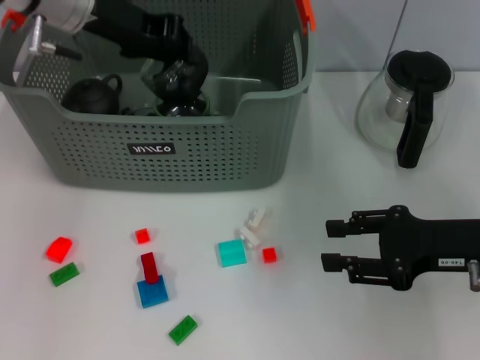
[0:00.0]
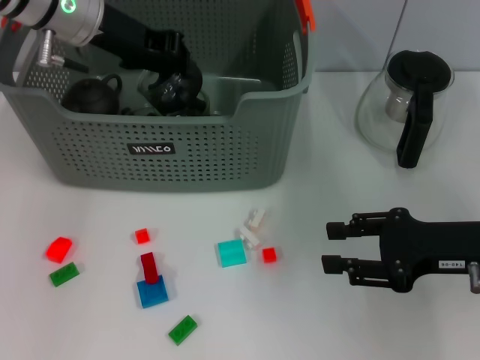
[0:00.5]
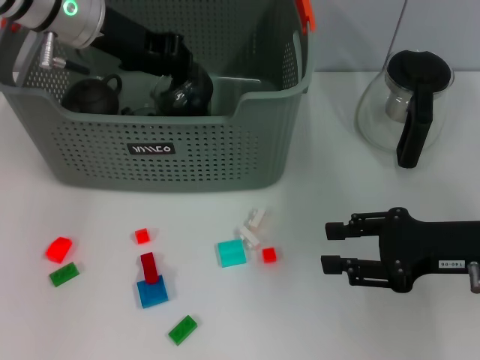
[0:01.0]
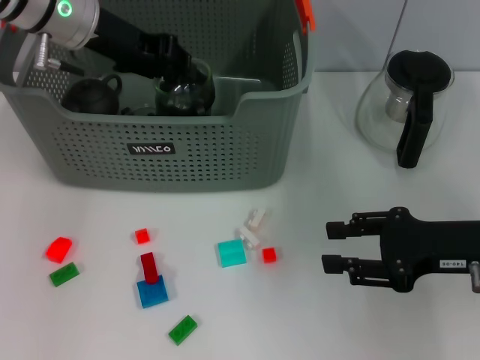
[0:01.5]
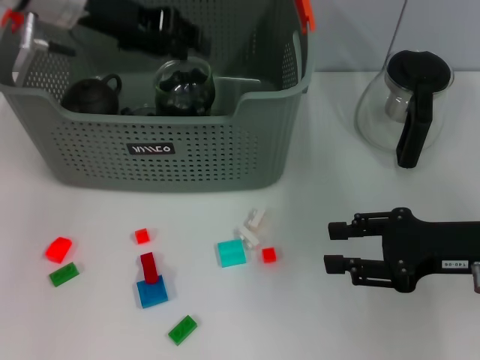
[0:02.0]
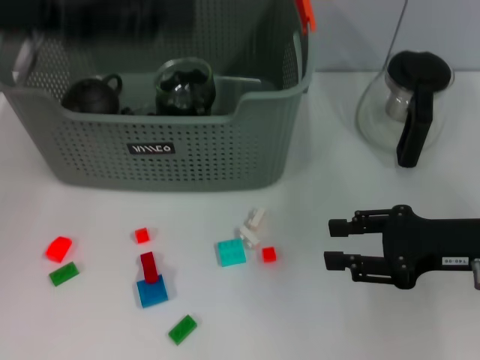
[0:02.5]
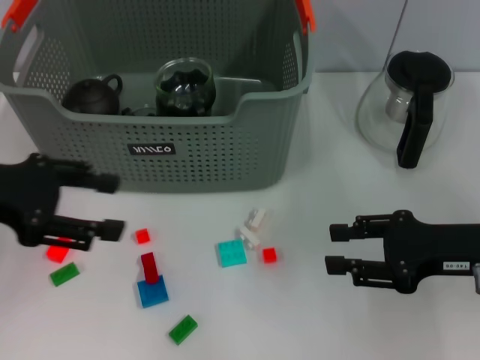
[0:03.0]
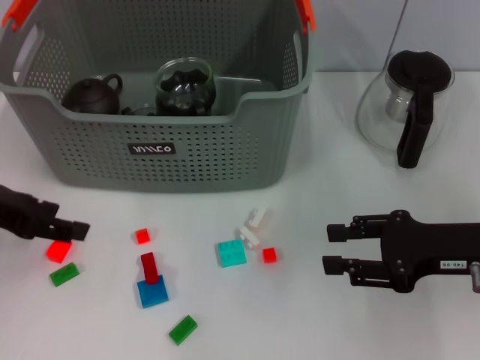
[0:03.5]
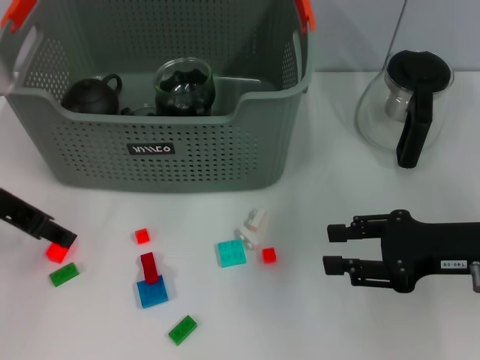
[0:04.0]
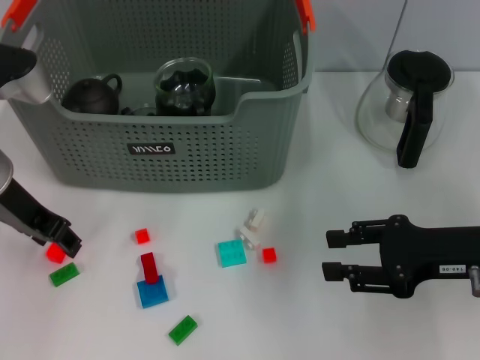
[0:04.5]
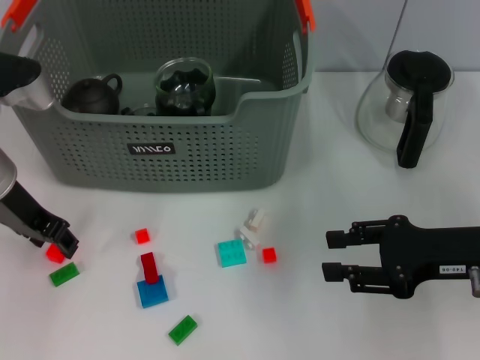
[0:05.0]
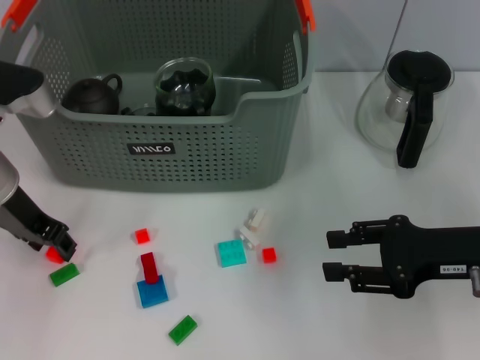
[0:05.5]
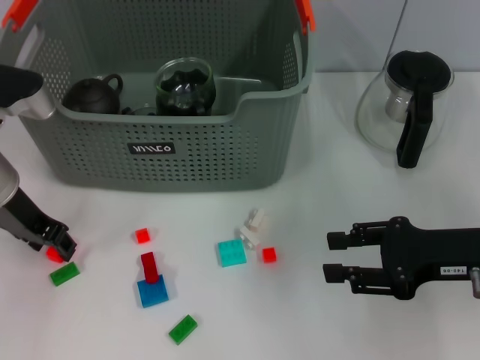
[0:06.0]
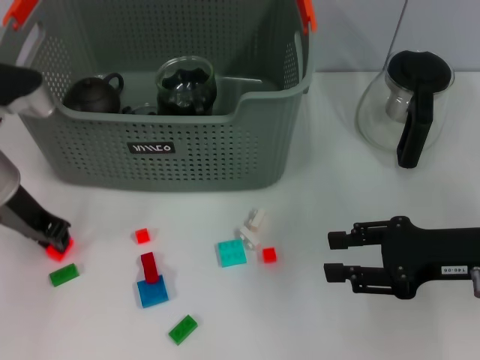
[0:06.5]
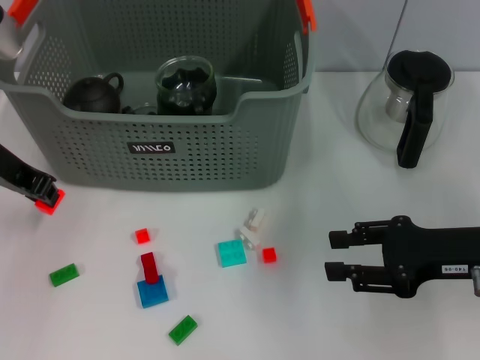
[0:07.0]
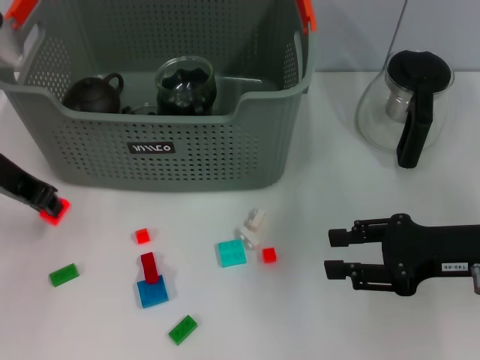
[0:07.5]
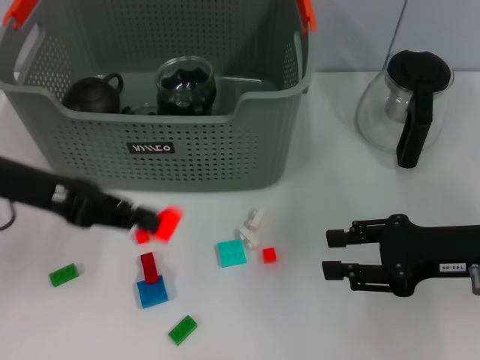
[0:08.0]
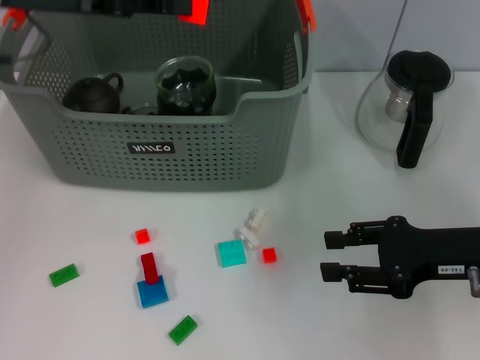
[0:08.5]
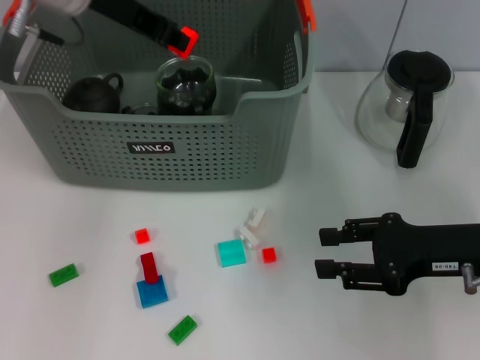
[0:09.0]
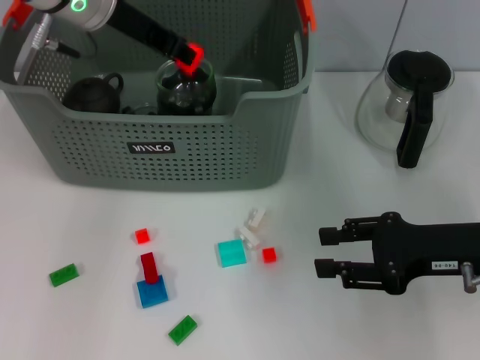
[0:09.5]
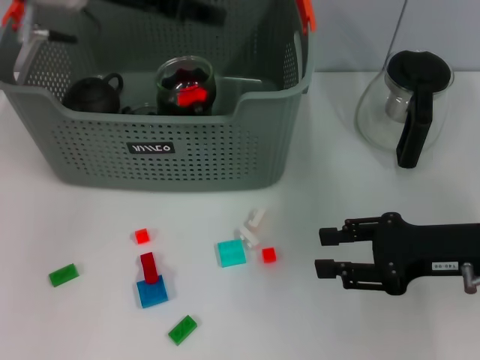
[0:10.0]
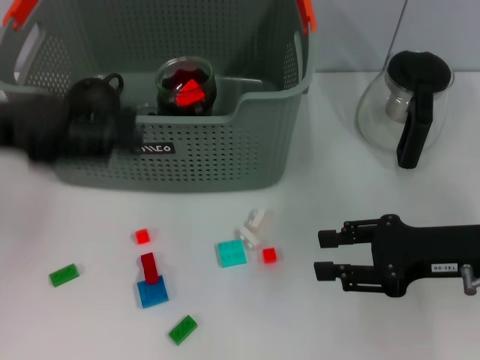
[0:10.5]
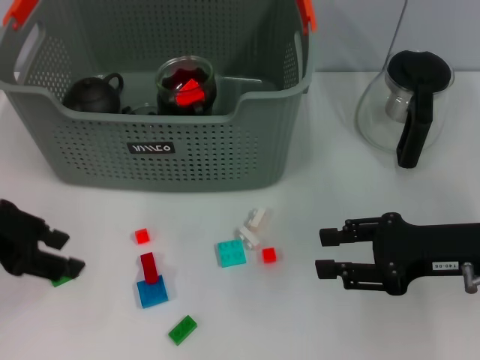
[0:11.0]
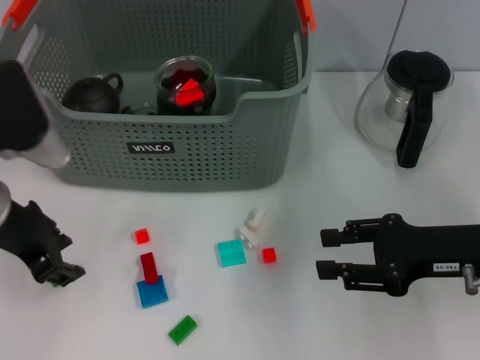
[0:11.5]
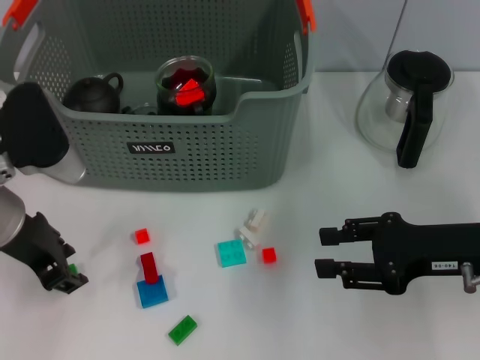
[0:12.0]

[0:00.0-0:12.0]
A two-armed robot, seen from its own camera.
Task of the whole recording: pick up the teacup on the table and place it into the storage bin, pick up the block on the table and place it into the storage bin.
Step, 0.0 to 2.0 s: Place the cup in the storage box with left gripper.
Step, 2.5 to 6.5 s: Grasp the orange block with left gripper.
Step, 7.0 to 9.5 s: Place the orange block in the storage box with left gripper.
0.0 to 2.0 s: The grippers make only small movements.
2.0 to 4.0 s: The left gripper travels backward, to the left and downward by approximately 15 cm, and opens its fingers.
4.0 to 6.0 s: The left gripper heads downward, covering some 5 cm.
6.0 to 8.0 s: The left gripper heads upward, covering approximately 5 cm, and closes.
8.0 to 10.0 s: The left gripper goes some 15 cm forward, upward and to the right.
10.0 to 12.0 s: The left gripper is displaced downward and backward by about 15 cm.

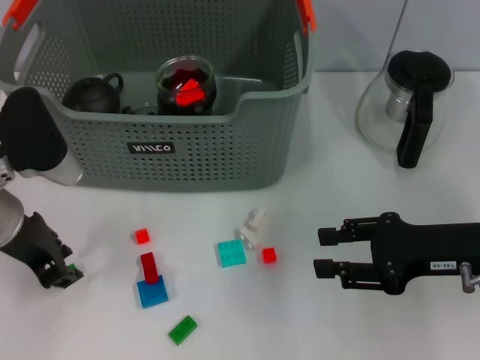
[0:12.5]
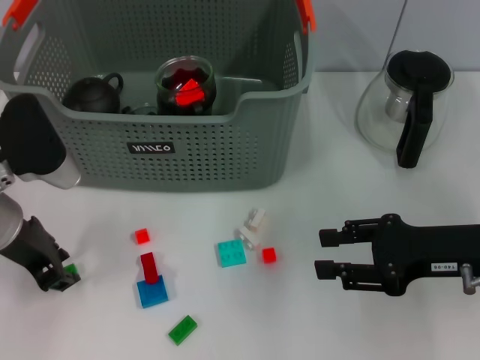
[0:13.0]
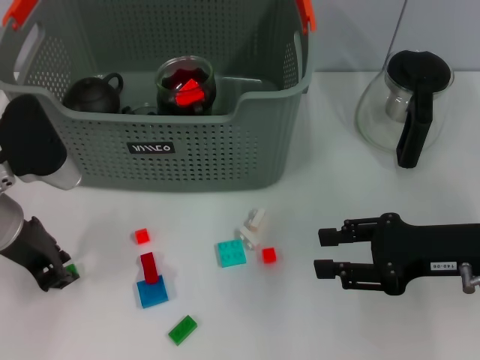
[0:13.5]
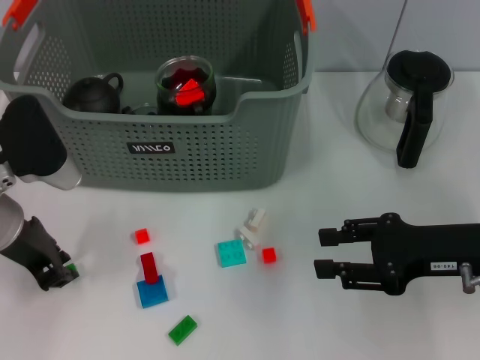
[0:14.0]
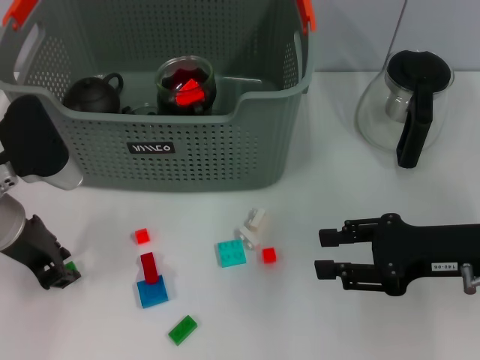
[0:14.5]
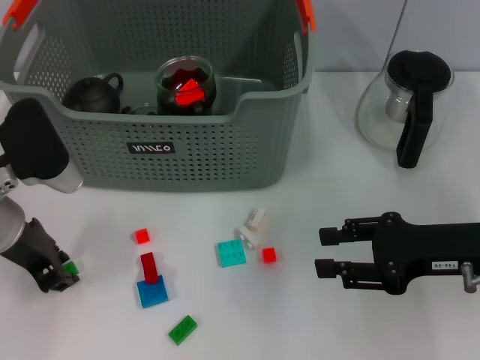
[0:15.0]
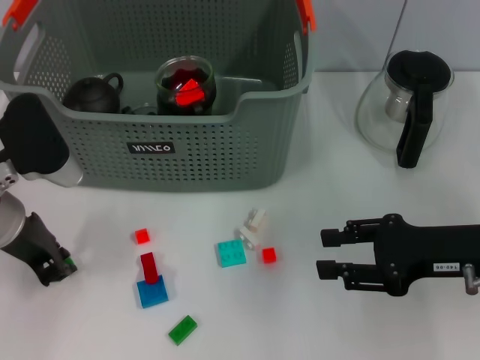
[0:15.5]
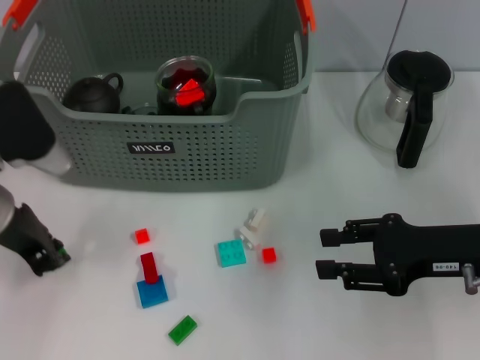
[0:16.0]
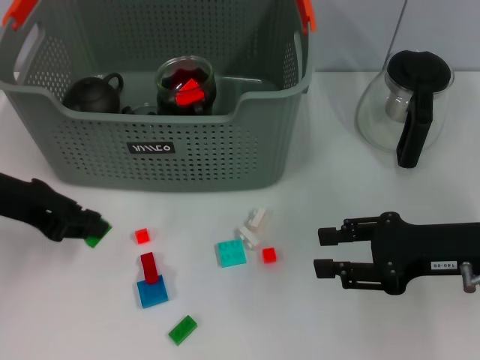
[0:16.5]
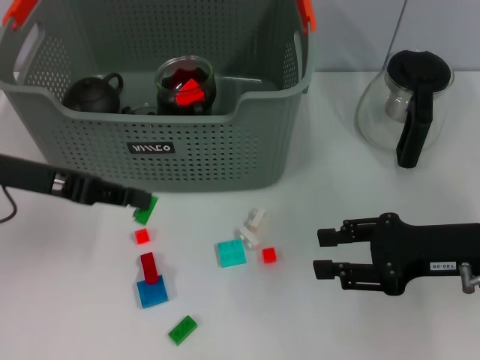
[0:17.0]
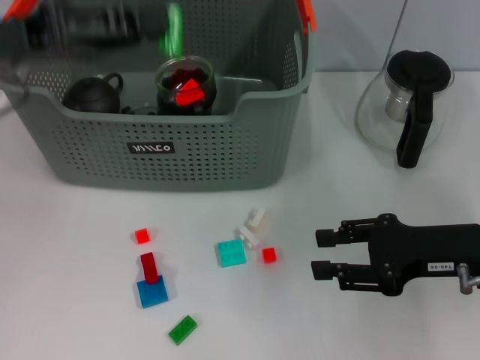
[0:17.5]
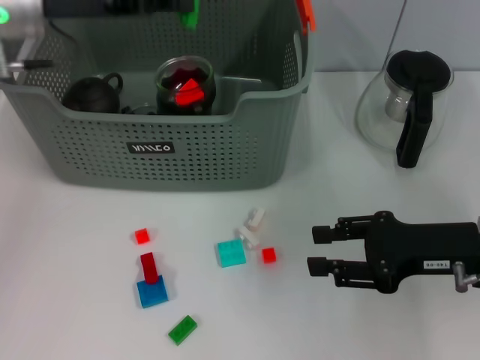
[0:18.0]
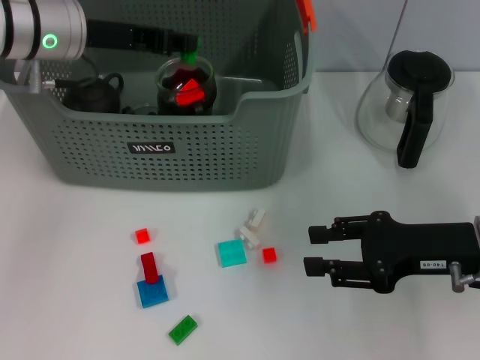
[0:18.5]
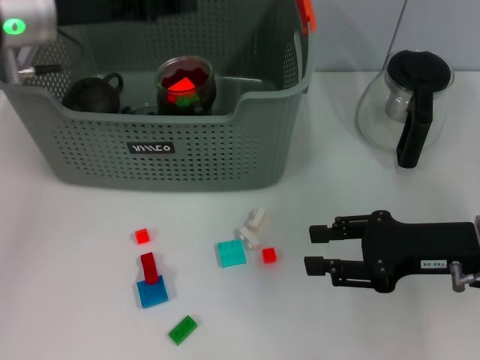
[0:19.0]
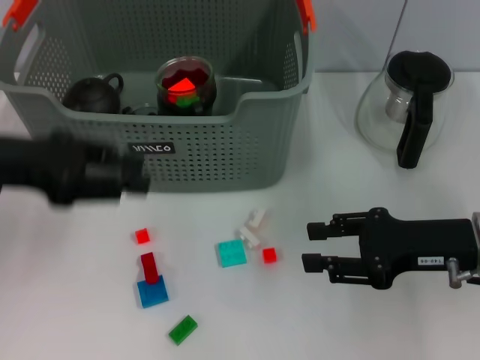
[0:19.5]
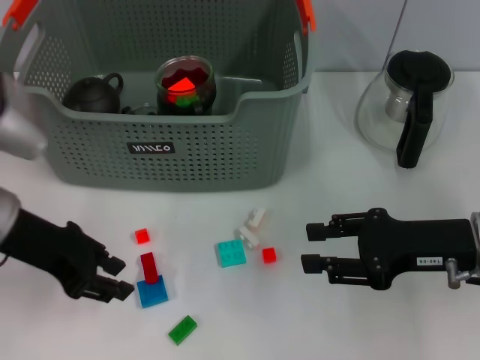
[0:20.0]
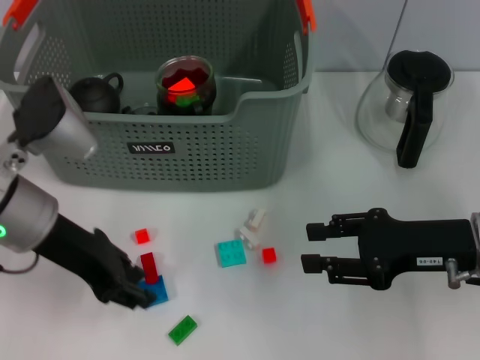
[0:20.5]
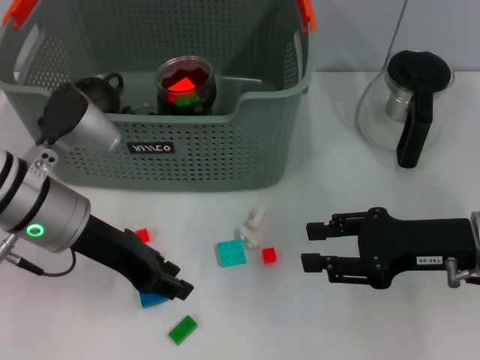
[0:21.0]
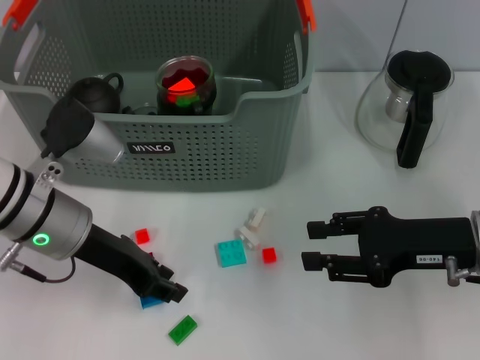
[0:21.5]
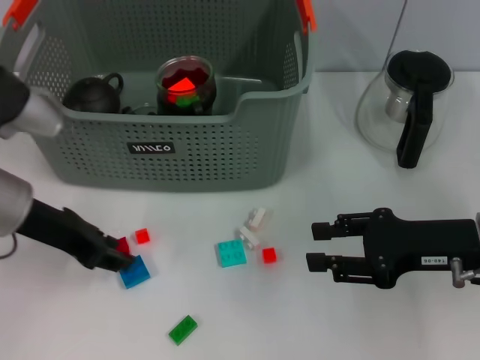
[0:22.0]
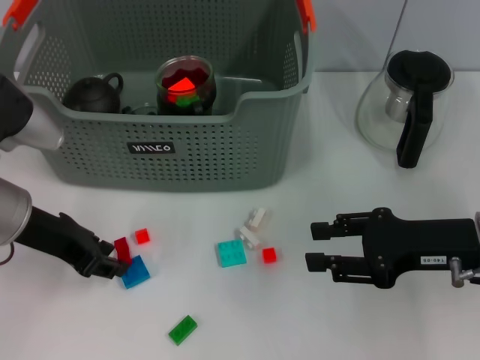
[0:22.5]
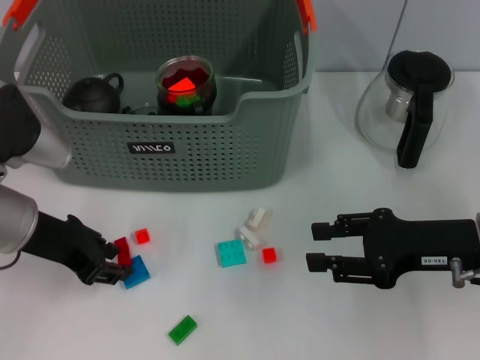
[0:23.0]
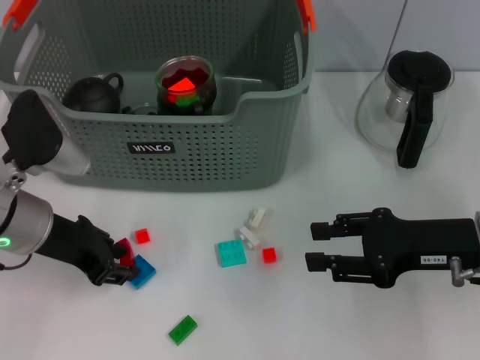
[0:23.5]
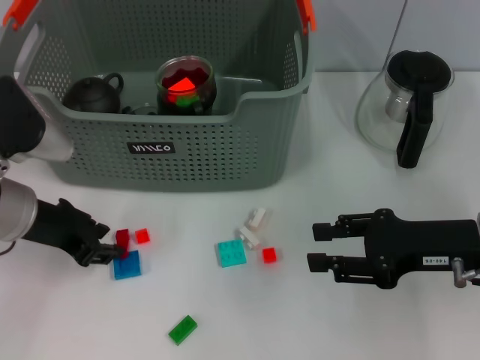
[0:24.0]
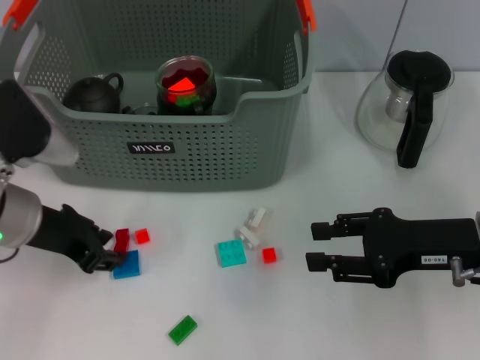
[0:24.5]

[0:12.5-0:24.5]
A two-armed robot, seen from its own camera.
Task of the whole recording: pick up the teacup on the table and place it into the storage bin, pick up the block on the table and place it into the storage bin.
Step, 12.5 to 15.5 s: Grasp the green block with left gripper.
Step, 16.0 to 18.5 s: Place the green block in the storage box with left gripper.
12.5 to 14.5 s: Both grippers stay put.
14.5 to 16.5 s: The left gripper moves some 5 cm.
16.5 to 18.5 s: The left gripper shifts approximately 15 cm forward and to the right.
18.5 to 20.5 s: The left gripper is displaced backward and downward by approximately 15 cm.
20.5 to 22.5 s: The grippers move only a little.
22.5 to 24.5 s: The grippers stay close to where they were, moving slightly.

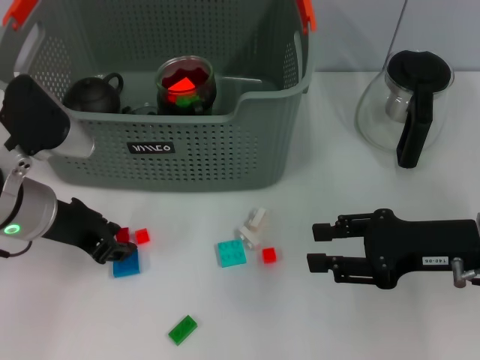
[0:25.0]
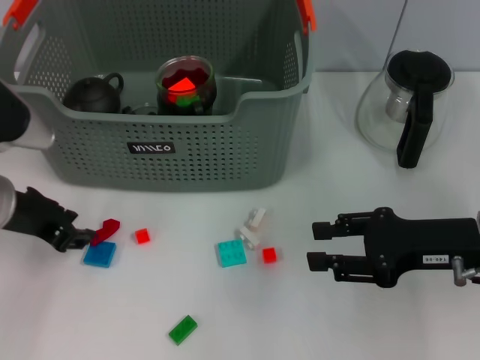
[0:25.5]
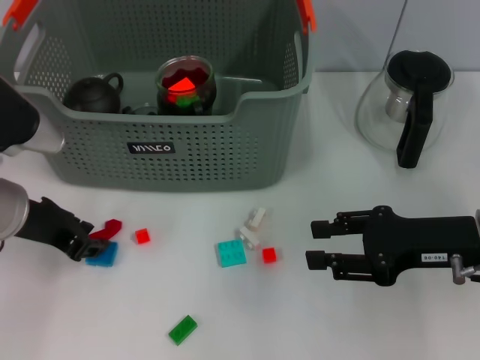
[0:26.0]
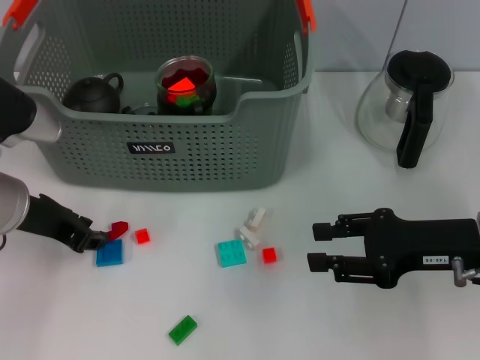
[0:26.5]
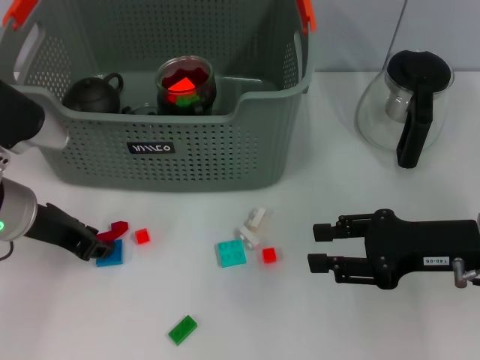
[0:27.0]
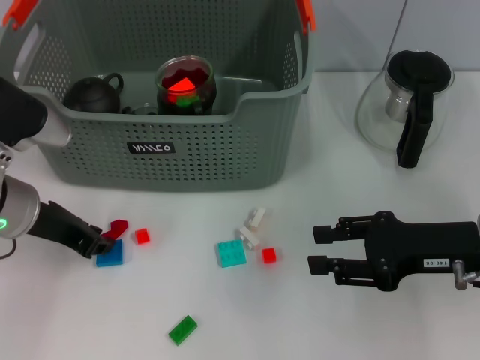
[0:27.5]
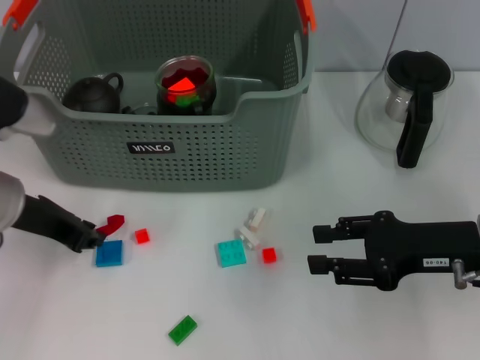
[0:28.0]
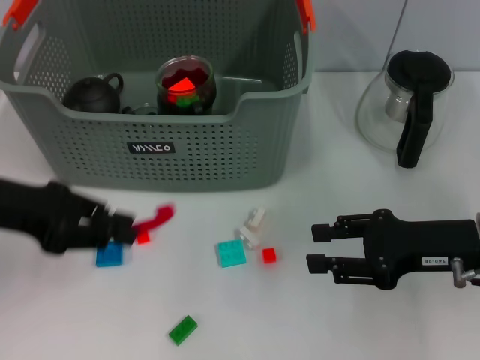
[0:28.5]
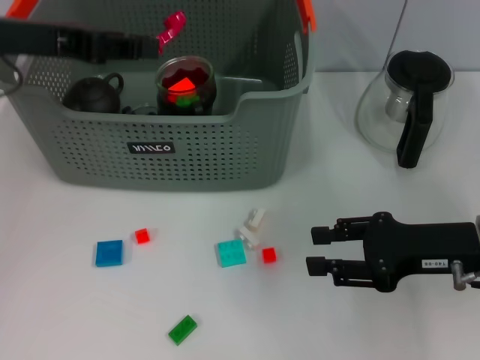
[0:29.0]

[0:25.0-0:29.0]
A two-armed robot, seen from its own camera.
Task of the whole recording: pick up the teacup on the table and place it into the storage bin, pick up the block on the table and place it into the storage bin.
Step, 25.0 to 27.5 s: Grasp the red block with left gripper.
25.0 to 27.0 s: There are only small adjustments of the grippers.
27.0 to 29.0 s: The left gripper travels upward by about 15 cm.
